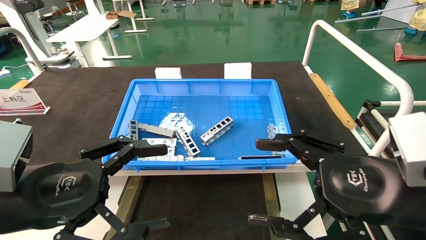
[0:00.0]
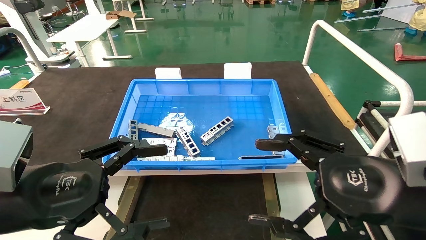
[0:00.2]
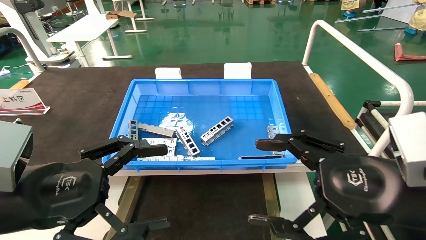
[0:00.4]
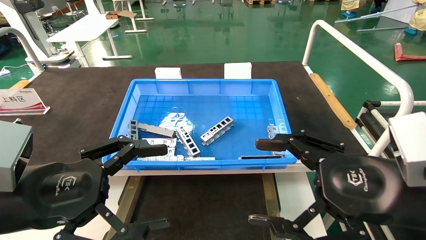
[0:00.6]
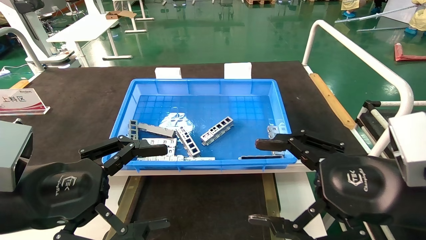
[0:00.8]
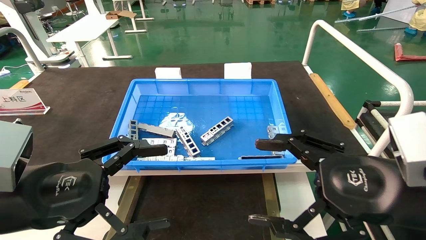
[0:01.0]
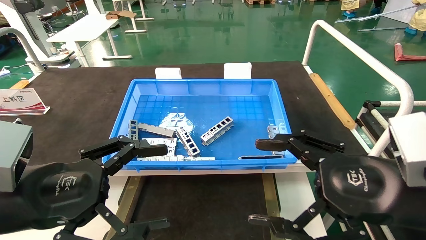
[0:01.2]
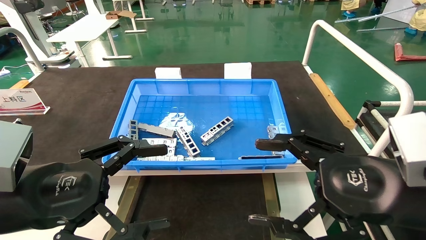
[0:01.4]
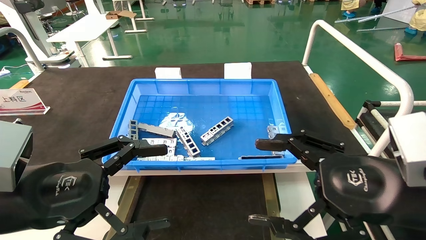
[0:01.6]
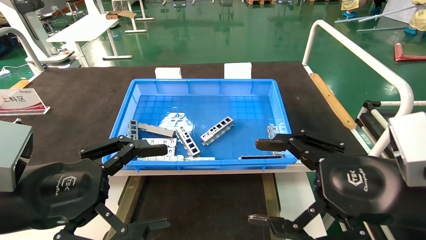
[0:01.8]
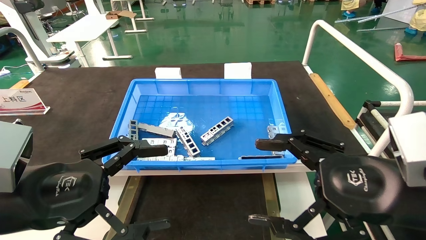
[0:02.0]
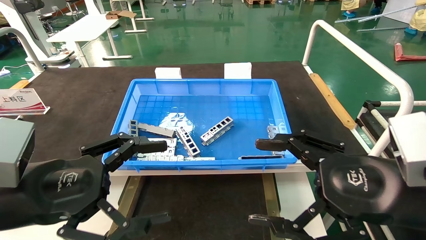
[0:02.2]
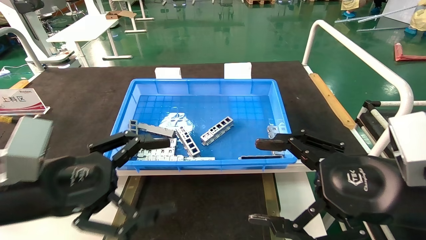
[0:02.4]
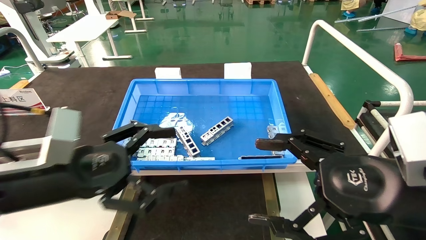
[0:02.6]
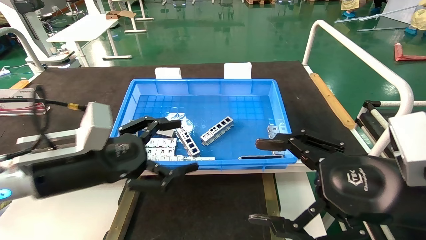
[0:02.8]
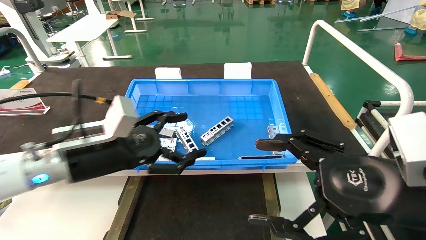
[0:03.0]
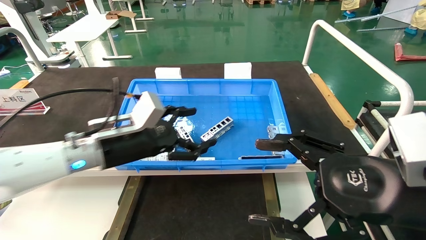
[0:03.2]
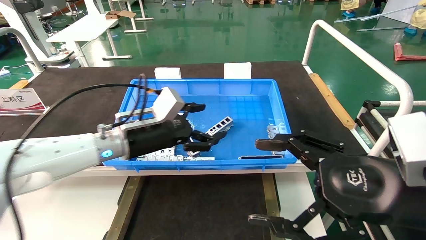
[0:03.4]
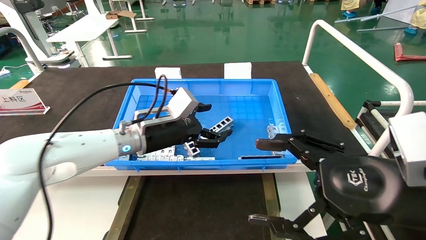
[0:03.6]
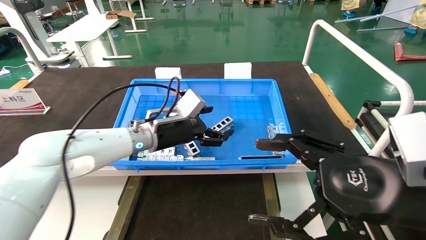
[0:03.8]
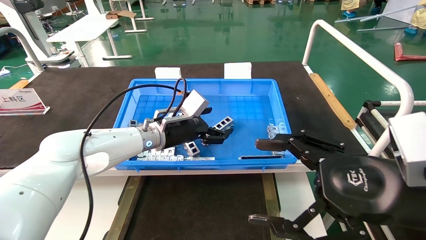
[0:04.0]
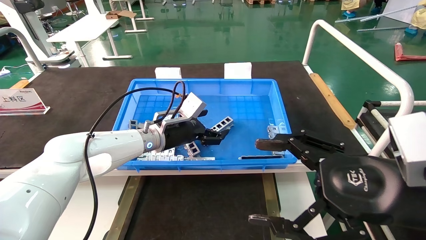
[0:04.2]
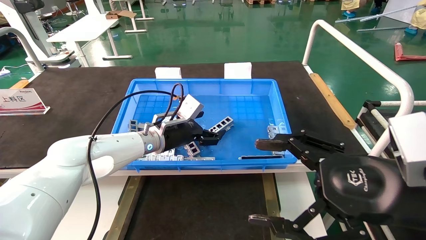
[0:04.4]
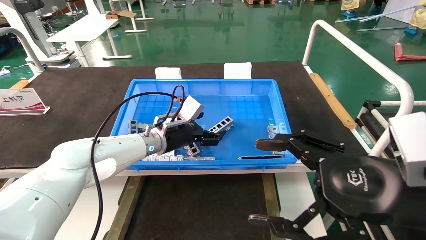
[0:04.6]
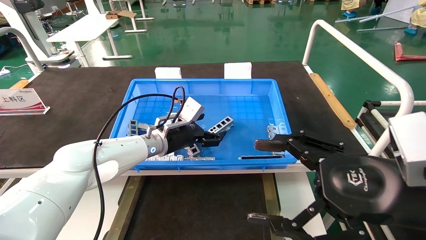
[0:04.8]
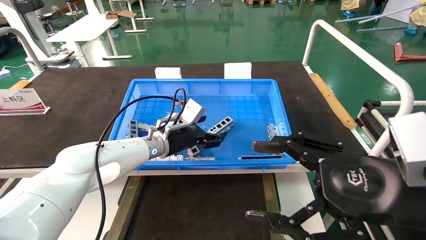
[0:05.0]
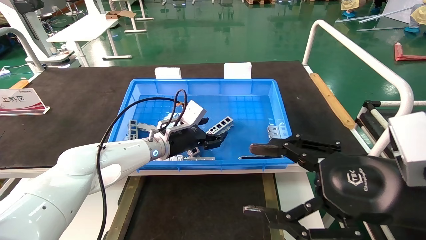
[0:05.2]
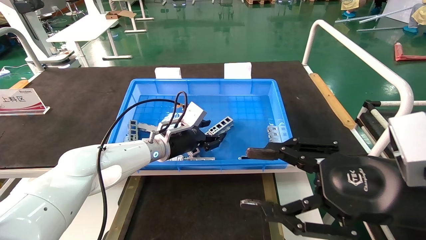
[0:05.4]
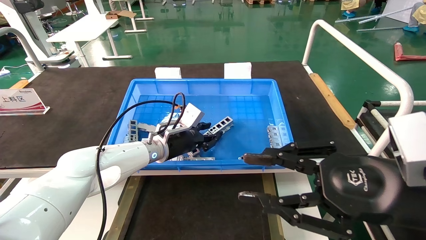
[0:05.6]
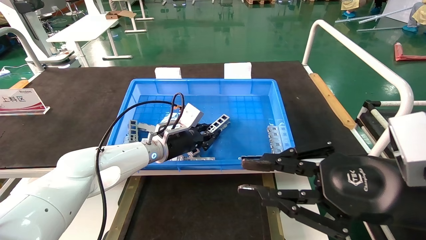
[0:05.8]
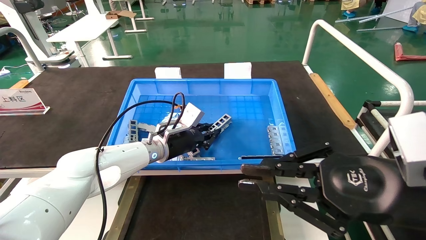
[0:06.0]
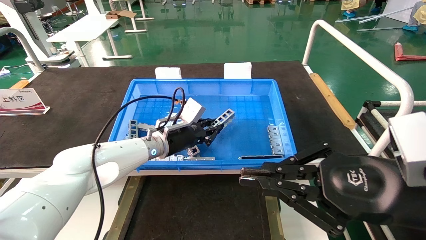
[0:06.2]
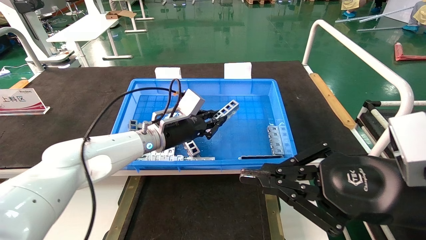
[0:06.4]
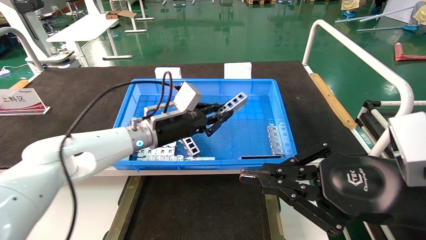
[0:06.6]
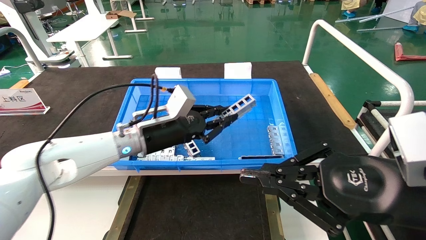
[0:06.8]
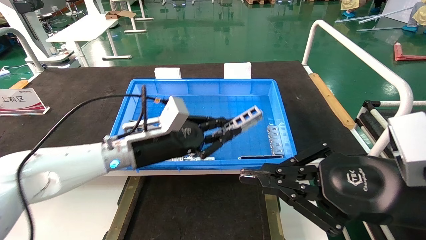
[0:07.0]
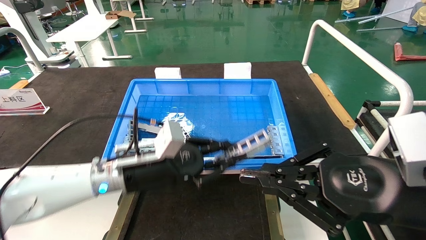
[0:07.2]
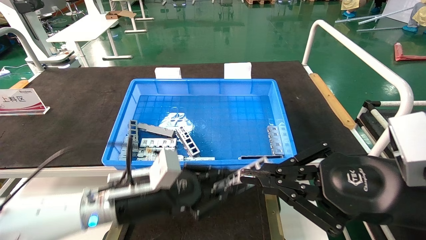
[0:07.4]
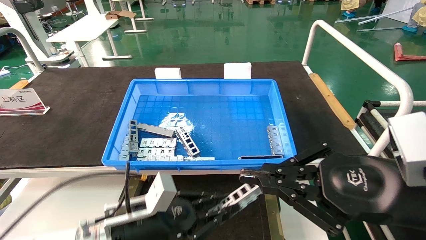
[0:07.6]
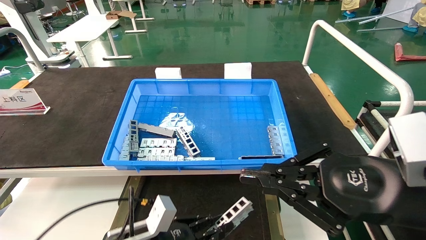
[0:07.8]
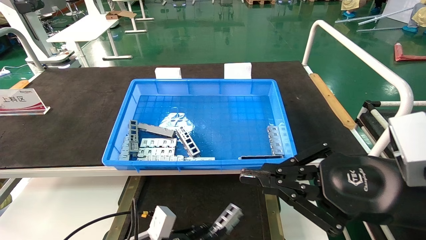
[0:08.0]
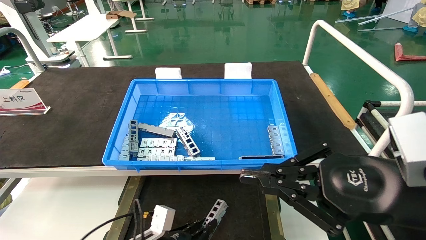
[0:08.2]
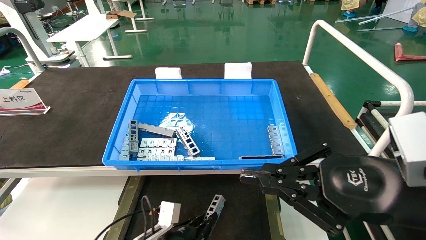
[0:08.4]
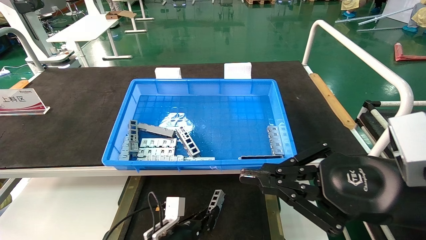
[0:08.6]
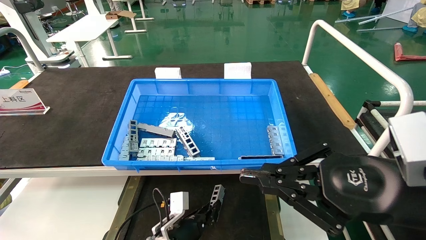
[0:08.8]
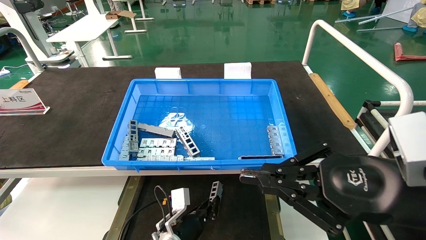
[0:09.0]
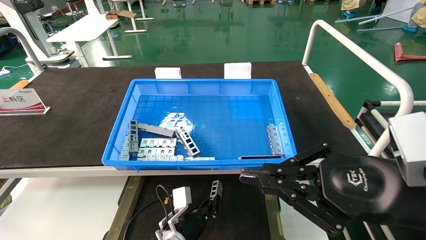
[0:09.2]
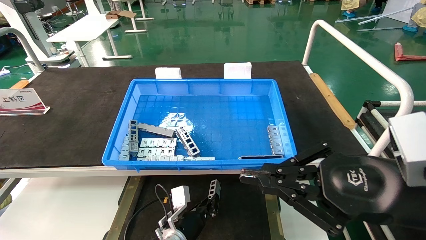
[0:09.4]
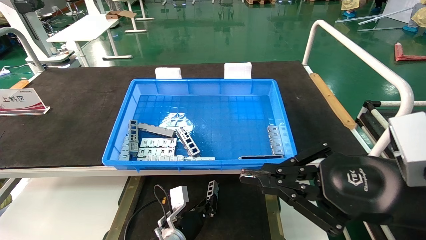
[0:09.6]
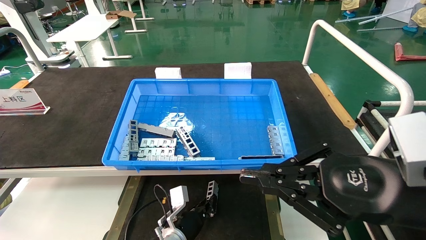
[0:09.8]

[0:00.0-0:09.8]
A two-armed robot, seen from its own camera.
Task of the whole recording: Grasp the part with one hand and place it on the black container.
Step, 0:02.6 to 0:05.8: Pick up the front USB bracket from the feeding area.
0:00.0 to 0:01.4: The two grippers keep their place.
0:01.4 to 0:02.8: The left gripper shifts approximately 10 cm forward.
0:02.8 to 0:04.2: The left gripper travels forward and to the right by roughly 25 cm.
0:04.2 to 0:05.6: The left gripper closes up. Meanwhile the right gripper closes.
0:05.6 to 0:07.0: The right gripper closes its fingers; the left gripper heads backward, covering approximately 10 cm, and closes up.
0:07.0 to 0:08.4: The left gripper is displaced downward by about 25 cm.
0:08.4 to 0:09.8: The left gripper moves forward, approximately 5 cm.

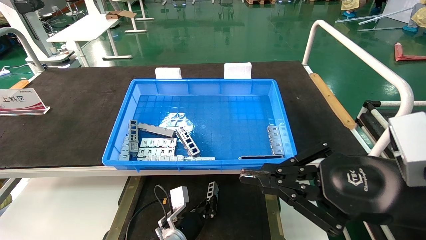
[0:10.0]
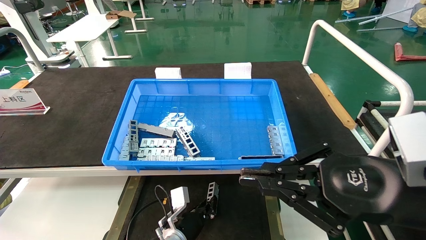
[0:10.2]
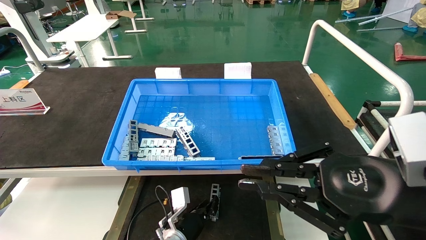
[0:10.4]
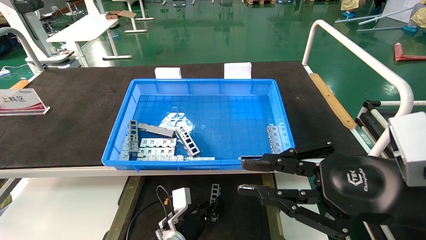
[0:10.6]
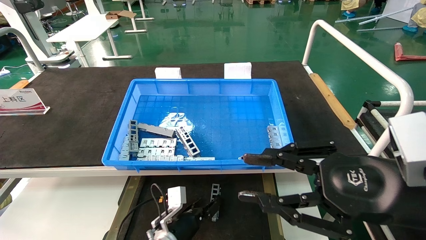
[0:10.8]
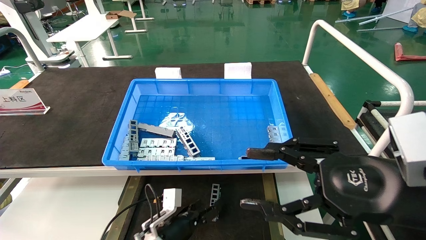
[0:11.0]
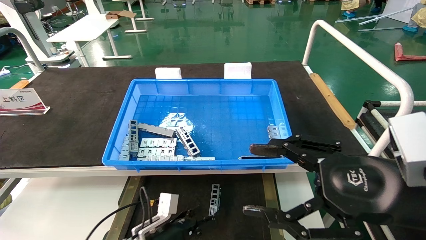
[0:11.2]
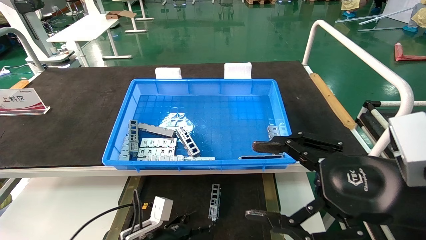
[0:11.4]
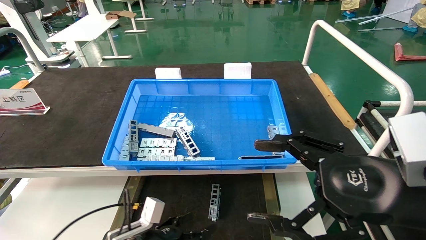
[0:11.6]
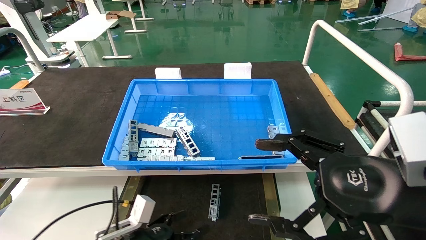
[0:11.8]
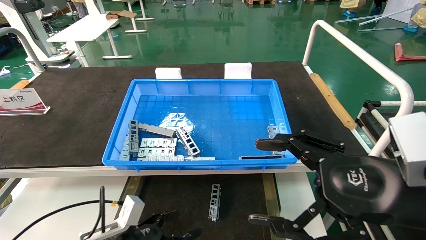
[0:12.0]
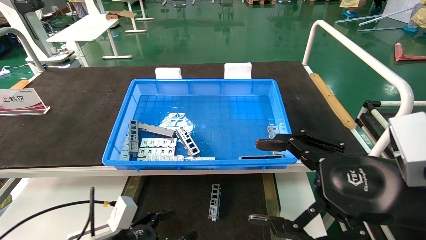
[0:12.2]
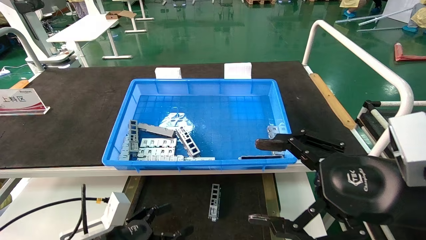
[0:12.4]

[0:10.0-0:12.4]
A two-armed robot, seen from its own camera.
Task of the whole recording: Grasp the part with one hand and place it on the black container.
0:10.0 to 0:11.2: The right gripper opens up. The left gripper shifts some 10 cm to the left and backward, and opens up.
0:11.2 to 0:12.4: The left gripper shifts about 15 cm to the left, backward and upward. The right gripper opens.
